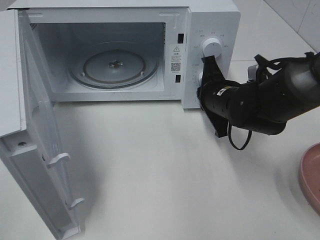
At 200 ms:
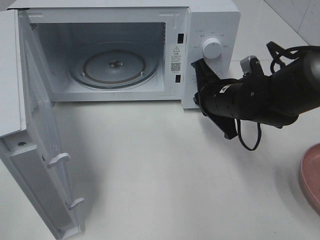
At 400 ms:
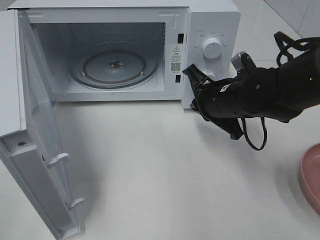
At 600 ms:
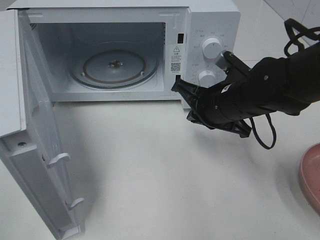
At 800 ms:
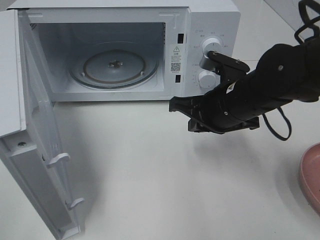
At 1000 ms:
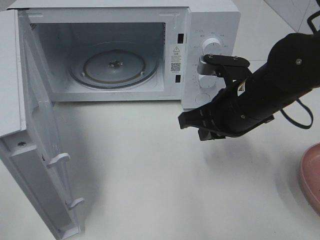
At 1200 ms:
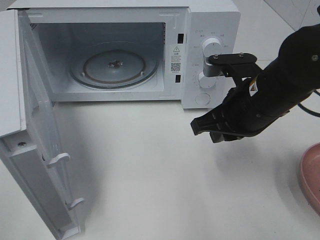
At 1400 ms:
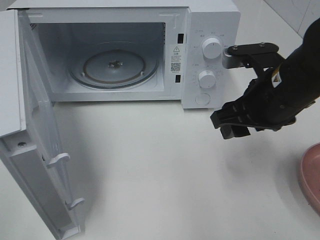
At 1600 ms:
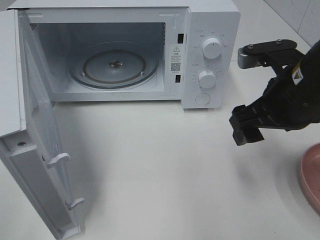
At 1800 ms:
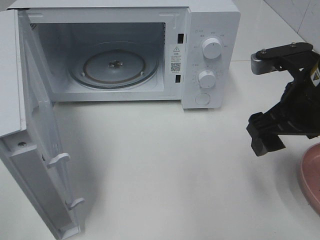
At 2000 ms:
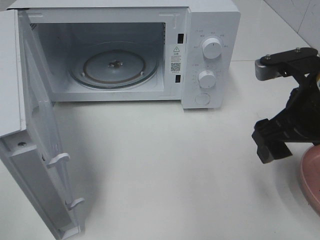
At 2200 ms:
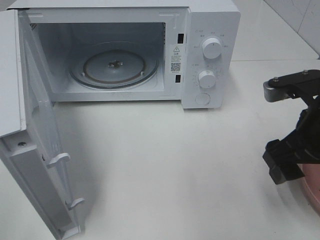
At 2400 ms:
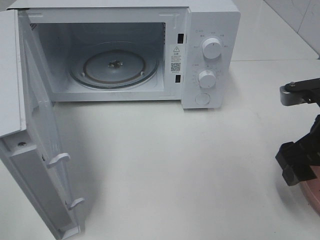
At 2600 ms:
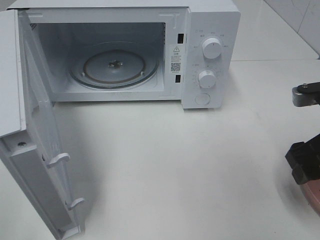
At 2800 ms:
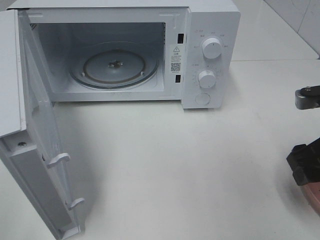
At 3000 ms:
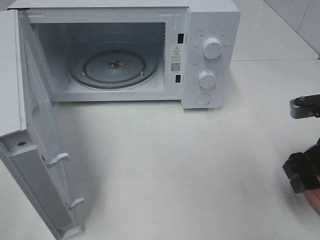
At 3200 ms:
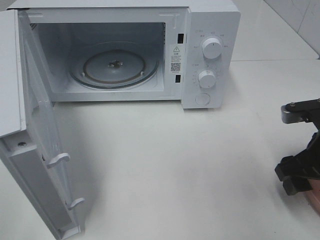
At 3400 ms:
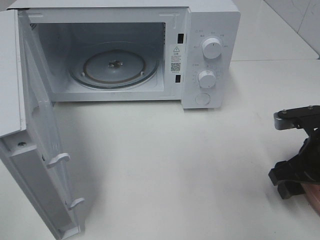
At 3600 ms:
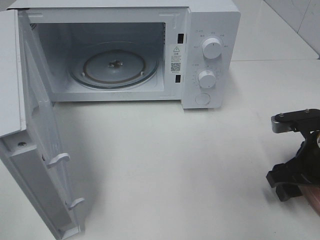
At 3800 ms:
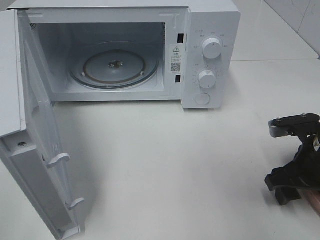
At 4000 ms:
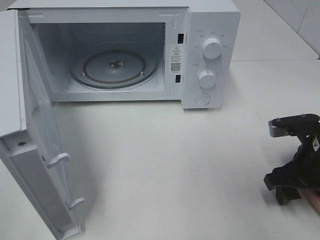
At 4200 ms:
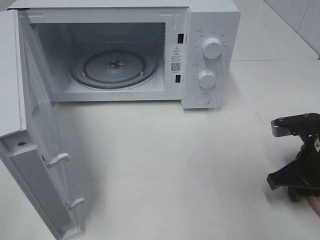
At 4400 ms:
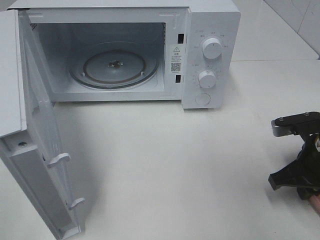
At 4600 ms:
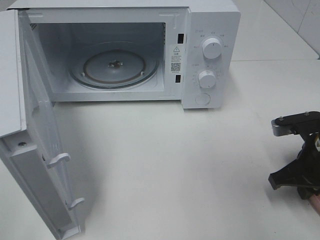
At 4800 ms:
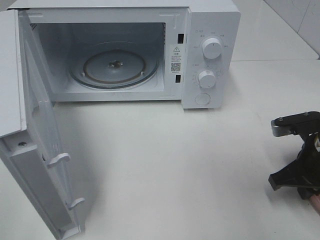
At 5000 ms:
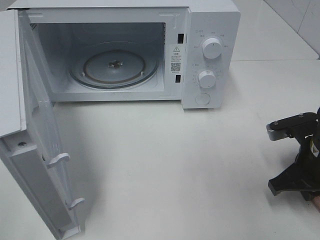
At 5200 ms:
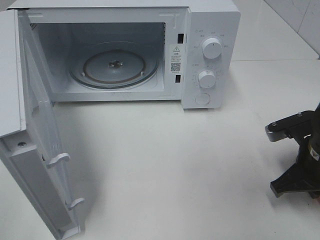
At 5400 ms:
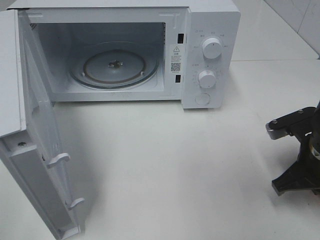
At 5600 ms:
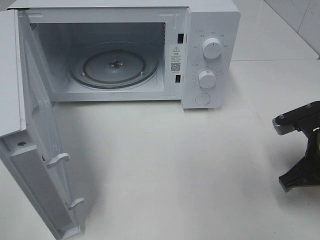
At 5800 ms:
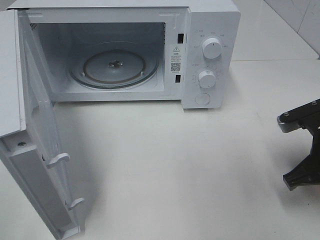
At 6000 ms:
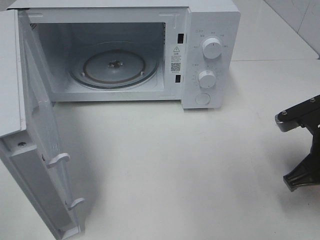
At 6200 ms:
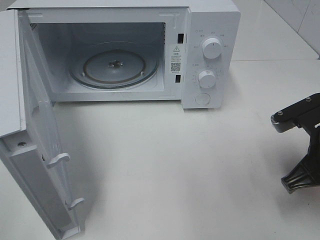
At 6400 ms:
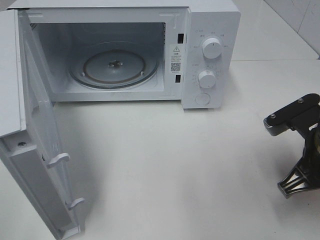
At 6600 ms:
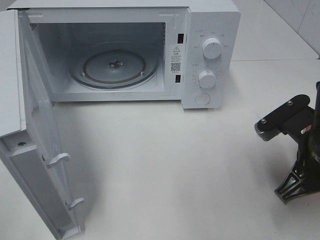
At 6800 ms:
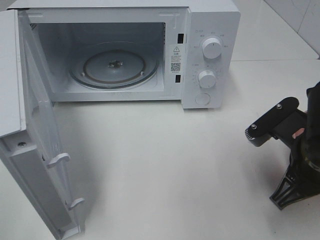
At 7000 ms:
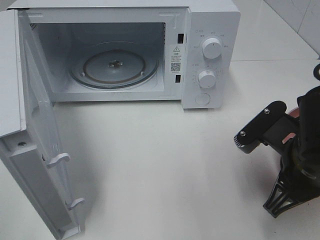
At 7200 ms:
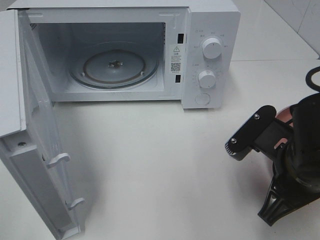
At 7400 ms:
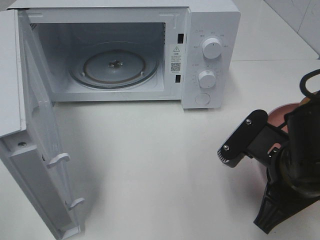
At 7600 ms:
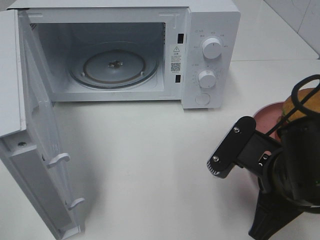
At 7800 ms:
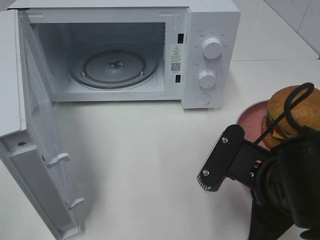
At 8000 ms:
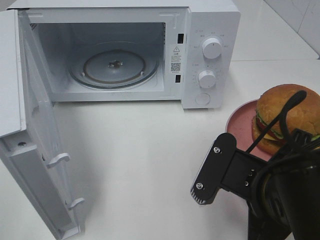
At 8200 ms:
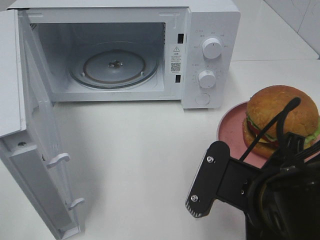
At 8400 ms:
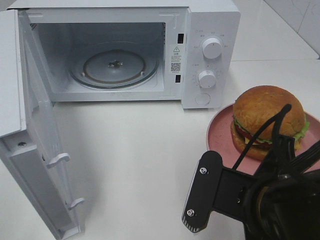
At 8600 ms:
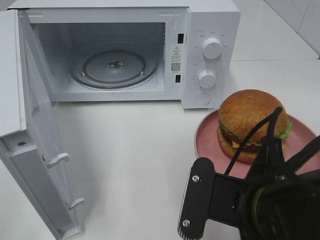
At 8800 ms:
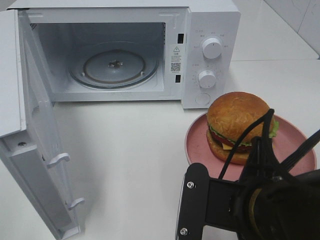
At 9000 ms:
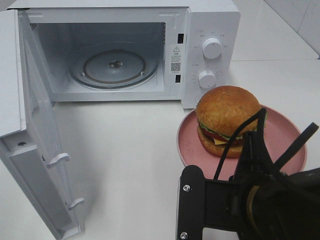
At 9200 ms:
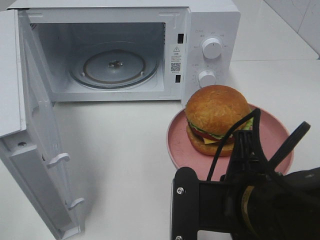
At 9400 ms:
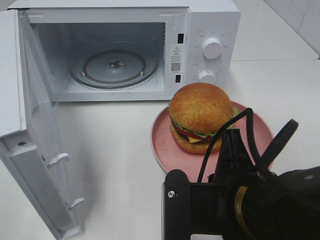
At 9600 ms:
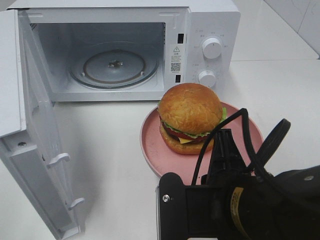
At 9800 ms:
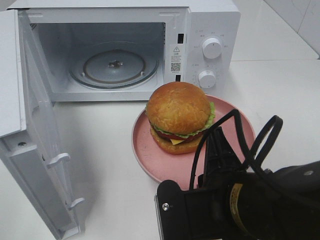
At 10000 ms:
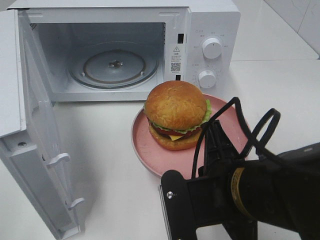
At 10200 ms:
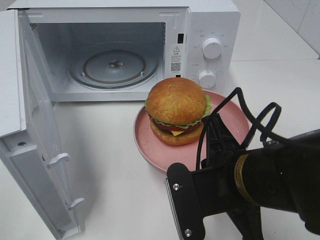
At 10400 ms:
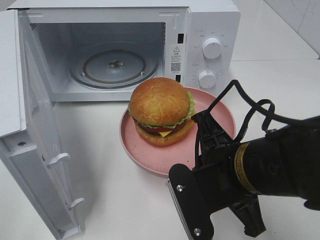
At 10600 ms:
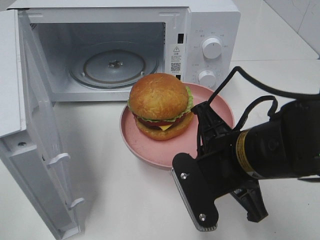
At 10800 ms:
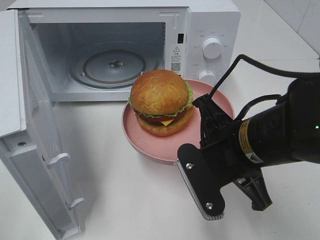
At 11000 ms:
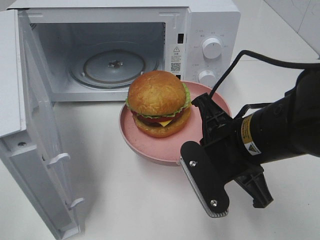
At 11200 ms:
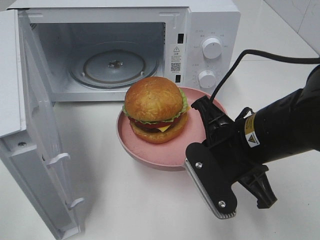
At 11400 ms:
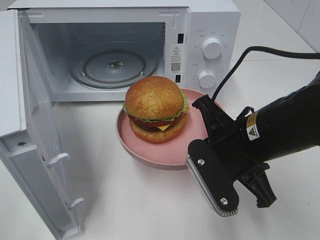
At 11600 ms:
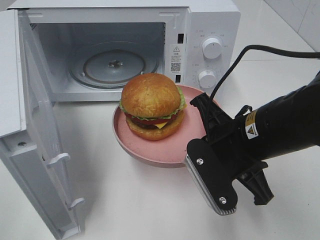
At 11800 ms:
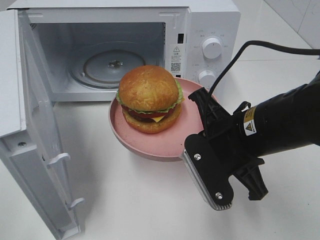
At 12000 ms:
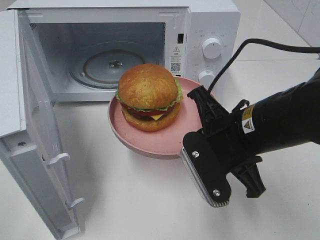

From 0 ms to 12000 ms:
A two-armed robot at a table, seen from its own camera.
Task of the whole recording: Heat the burger.
Step, from 200 ms to 5000 ms: Right hand: grab the plate with the hamburger.
From 0 ms to 1600 ms: The right gripper is displaced upward, backward and to the right by about 15 cm, and opens up.
From 1600 ms to 3000 ms: The right gripper shifts some 10 cm to the right and downward.
From 3000 ms to 4400 ms: The right gripper heads downward, covering roughly 5 cm, and closes up.
From 4400 ms to 6000 ms: The right gripper changes place by about 5 cm.
From 6000 ms to 7600 ms: The right gripper travels to the left and backward by about 10 cm.
From 7600 ms to 9000 ms: The right gripper ends up approximately 5 cm from where it was.
From 10400 ms to 12000 ms: The right gripper shifts some 5 cm forward.

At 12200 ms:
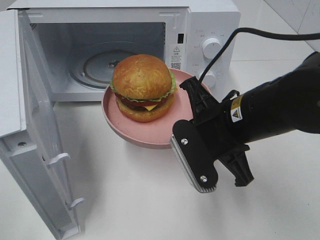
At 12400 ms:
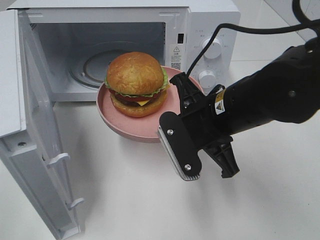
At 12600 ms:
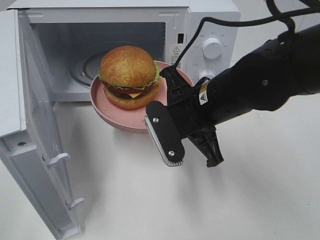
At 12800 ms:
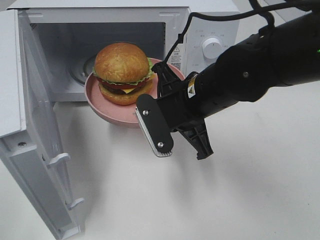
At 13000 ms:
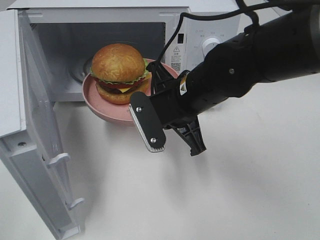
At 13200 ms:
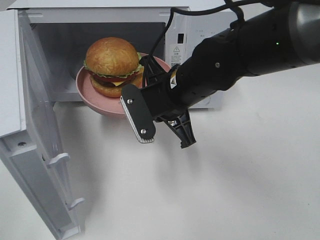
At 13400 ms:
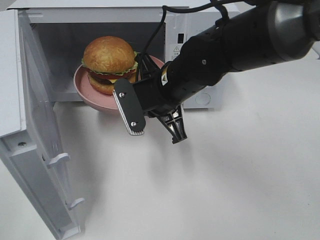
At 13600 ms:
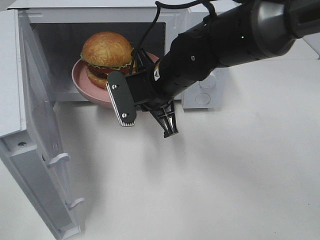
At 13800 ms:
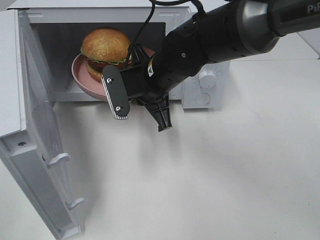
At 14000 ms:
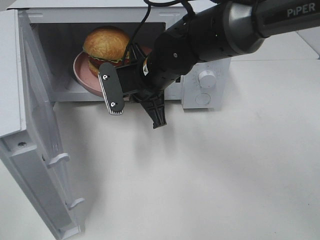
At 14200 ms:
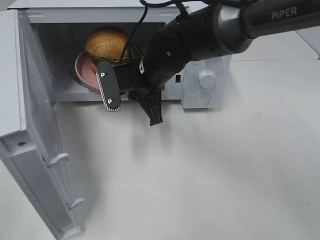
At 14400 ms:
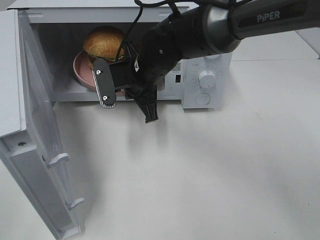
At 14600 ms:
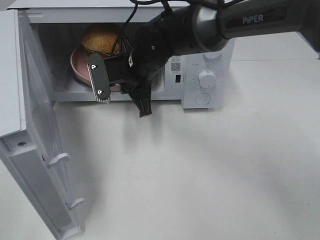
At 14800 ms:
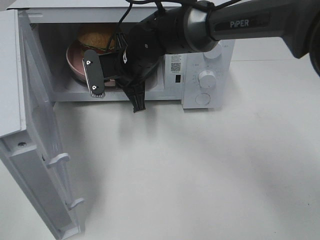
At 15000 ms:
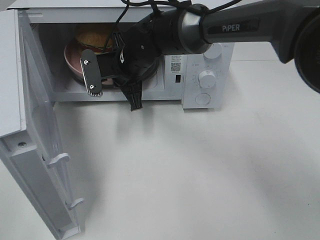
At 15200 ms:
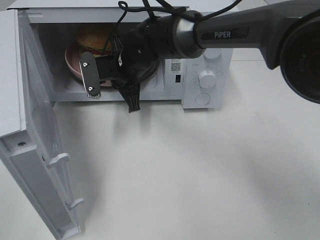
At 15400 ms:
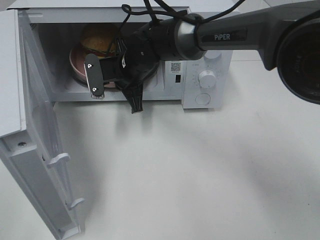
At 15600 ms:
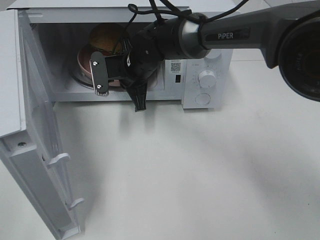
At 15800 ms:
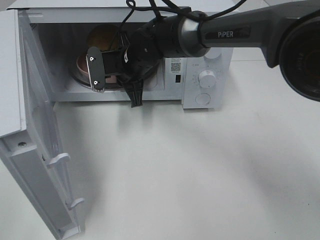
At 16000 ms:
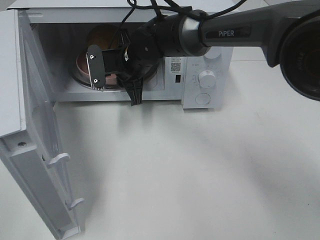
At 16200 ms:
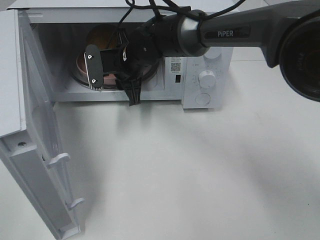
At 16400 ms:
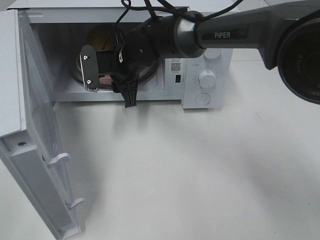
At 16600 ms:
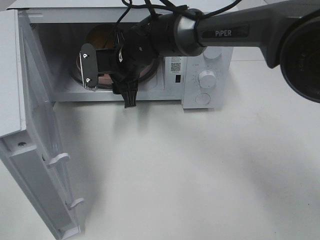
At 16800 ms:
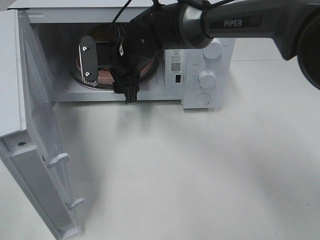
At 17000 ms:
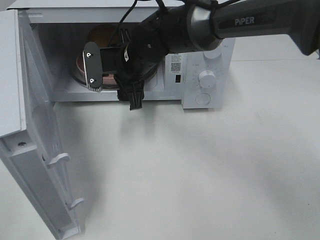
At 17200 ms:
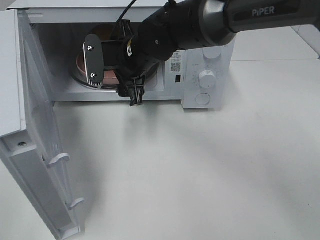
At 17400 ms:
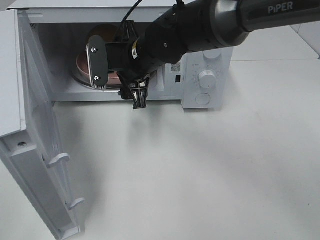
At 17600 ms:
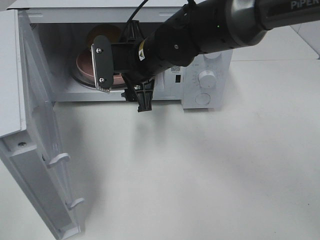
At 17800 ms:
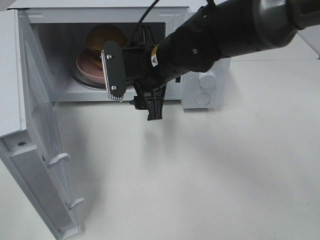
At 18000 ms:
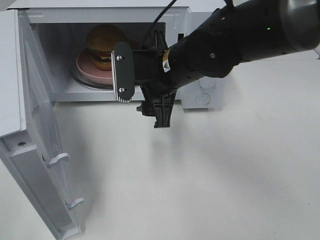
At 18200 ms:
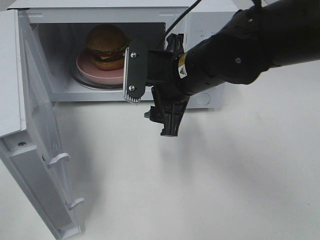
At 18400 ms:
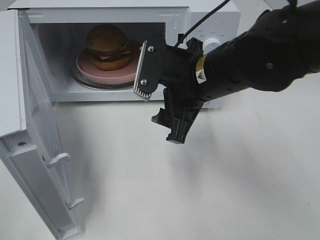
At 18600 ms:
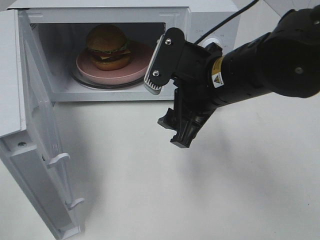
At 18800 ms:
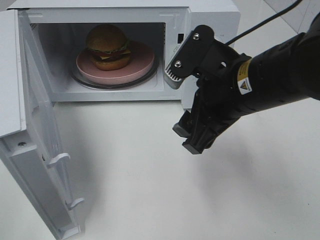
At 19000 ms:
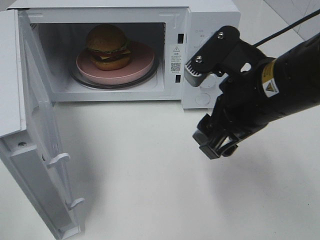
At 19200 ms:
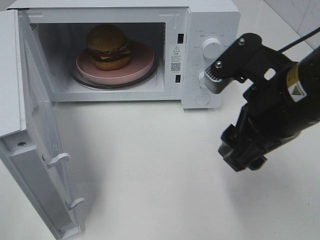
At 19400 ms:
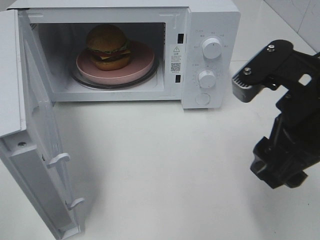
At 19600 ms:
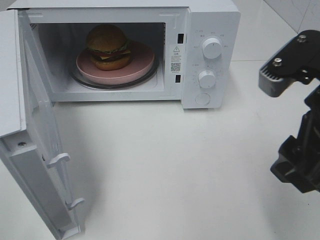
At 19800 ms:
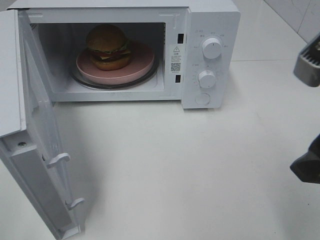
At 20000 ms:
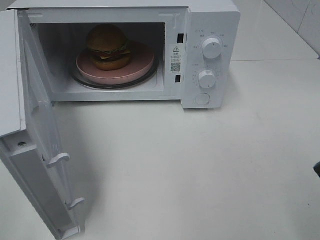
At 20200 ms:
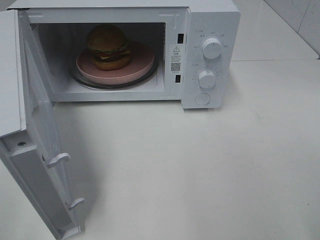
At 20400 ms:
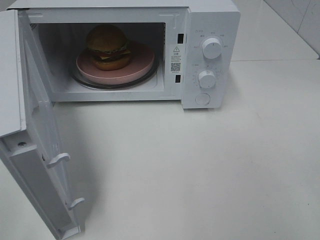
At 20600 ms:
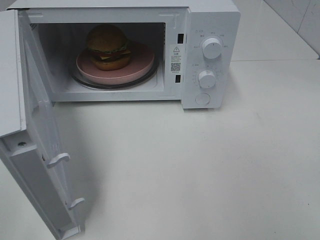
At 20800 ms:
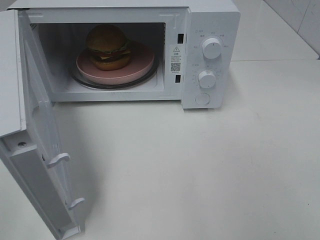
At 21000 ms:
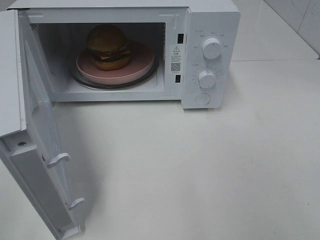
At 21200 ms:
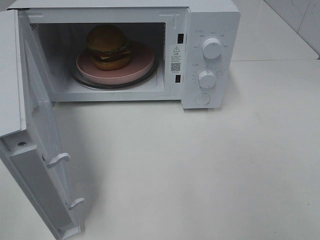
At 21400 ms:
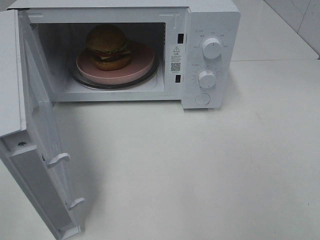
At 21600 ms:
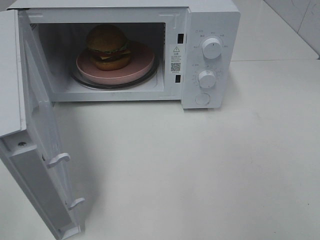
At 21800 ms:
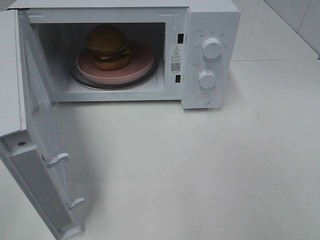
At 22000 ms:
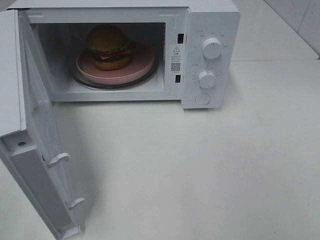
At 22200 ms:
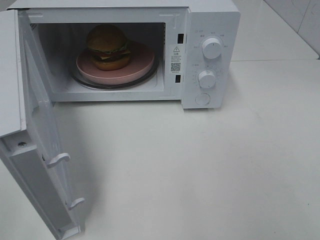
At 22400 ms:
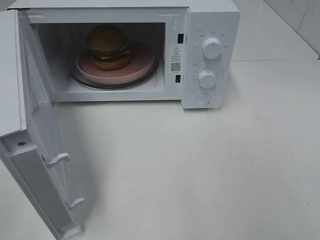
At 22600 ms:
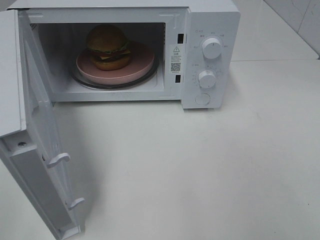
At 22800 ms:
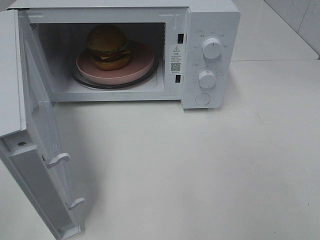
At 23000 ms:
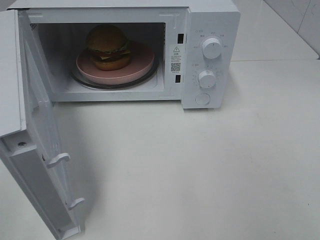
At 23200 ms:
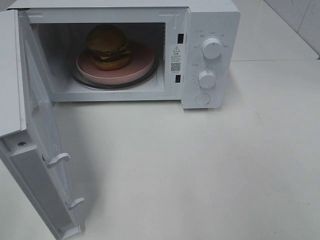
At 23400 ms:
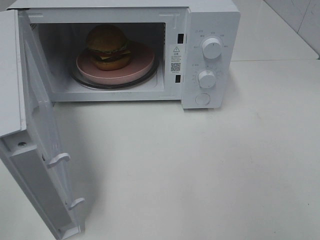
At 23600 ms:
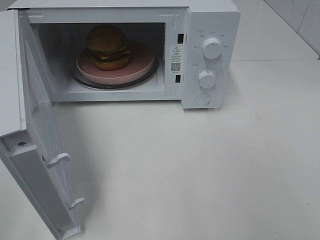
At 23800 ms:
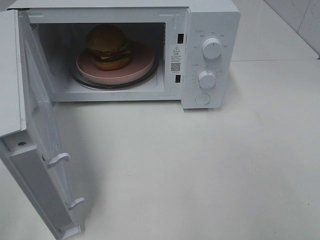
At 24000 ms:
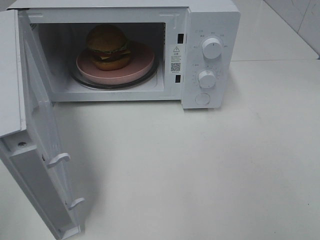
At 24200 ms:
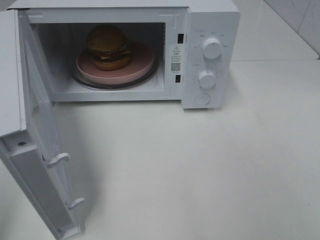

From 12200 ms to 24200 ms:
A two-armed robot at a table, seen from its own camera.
Task of the whole recording: Heat the burger.
Step, from 12200 ms to 16000 ms: Right hand: place the plate in the microwave.
From 12200 ms to 13800 ms: The right gripper is displaced forward and to the left by roughly 15 cm.
From 13800 ms to 15200 ms: The right gripper heads forward and to the left, covering roughly 10 cm.
From 15200 ms to 16600 ms: The right gripper opens up.
From 16600 ms to 18200 ms: The right gripper travels backward and to the right by approximately 15 cm.
From 18200 ms to 19800 ms: The right gripper moves backward, to the right and upward, some 25 cm.
From 19800 ms to 21200 ms: The right gripper shifts about 15 cm backward and to the right.
From 21200 ms to 22600 ms: Both grippers stay put.
